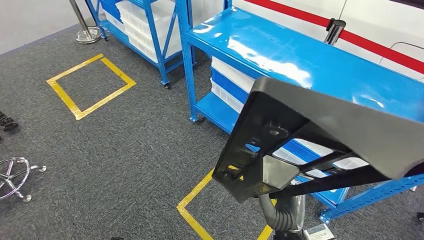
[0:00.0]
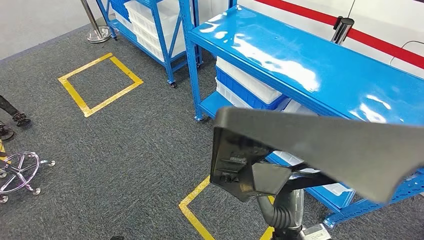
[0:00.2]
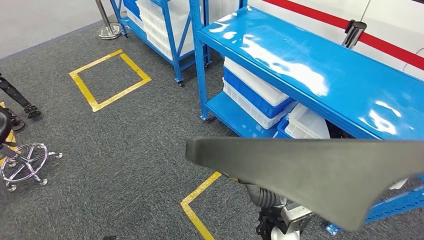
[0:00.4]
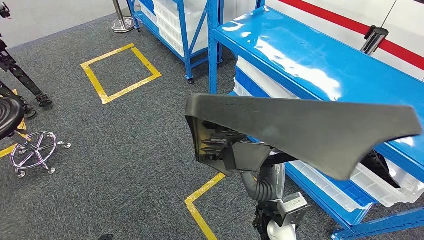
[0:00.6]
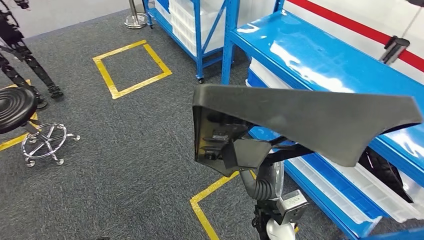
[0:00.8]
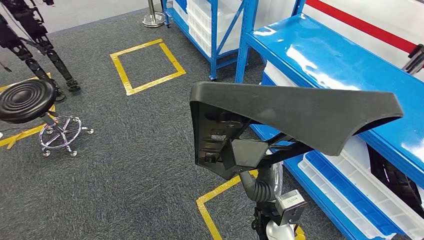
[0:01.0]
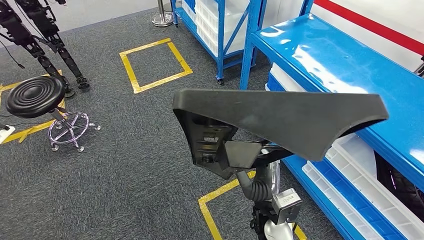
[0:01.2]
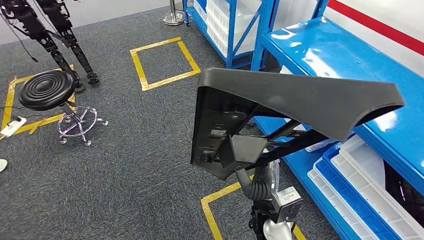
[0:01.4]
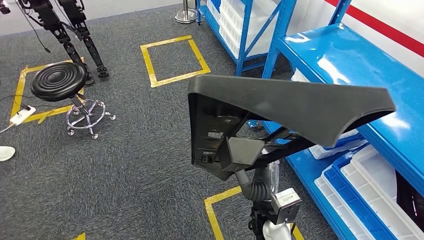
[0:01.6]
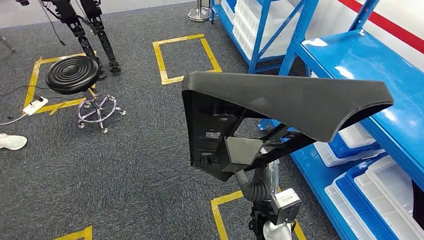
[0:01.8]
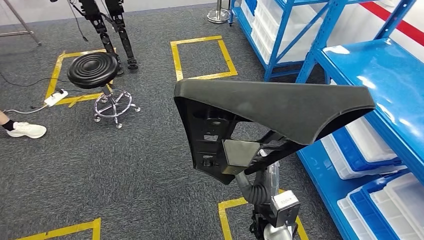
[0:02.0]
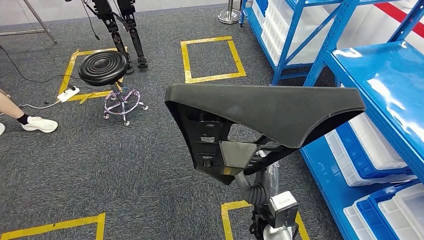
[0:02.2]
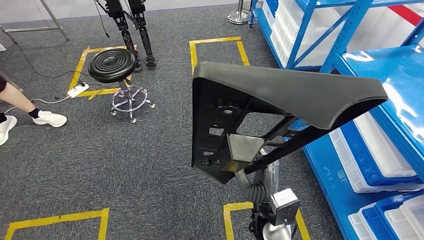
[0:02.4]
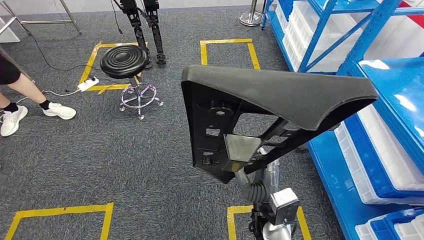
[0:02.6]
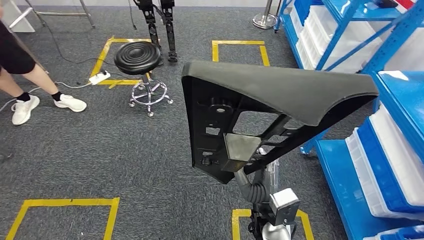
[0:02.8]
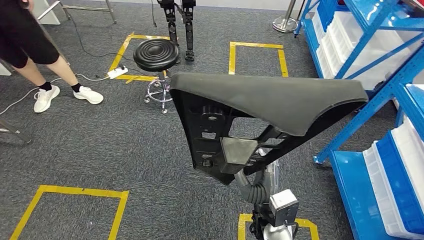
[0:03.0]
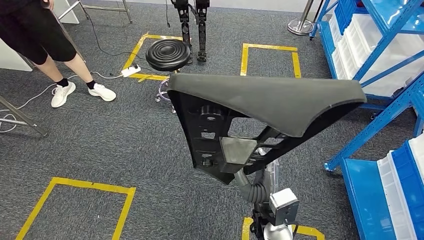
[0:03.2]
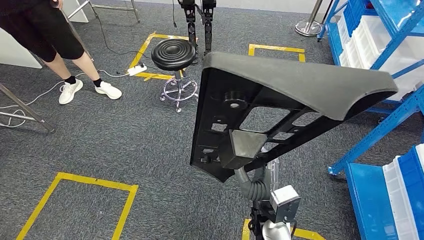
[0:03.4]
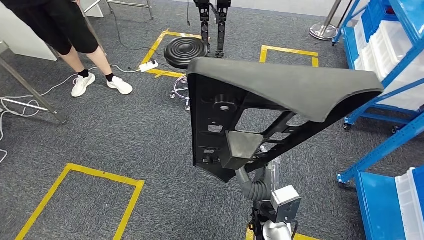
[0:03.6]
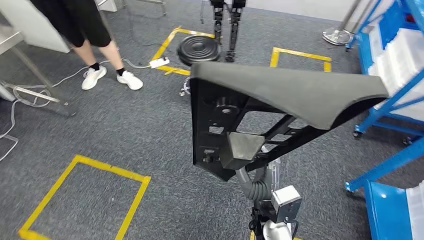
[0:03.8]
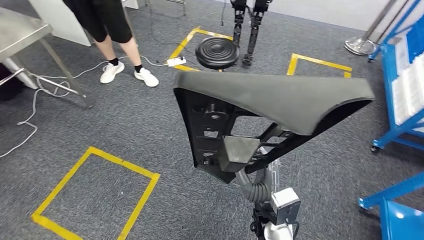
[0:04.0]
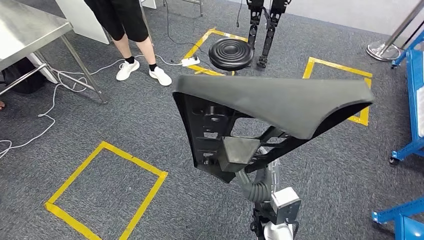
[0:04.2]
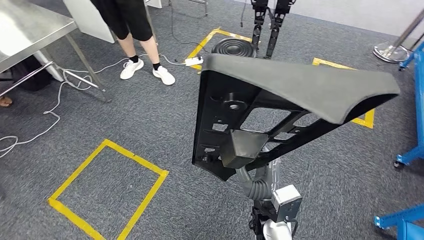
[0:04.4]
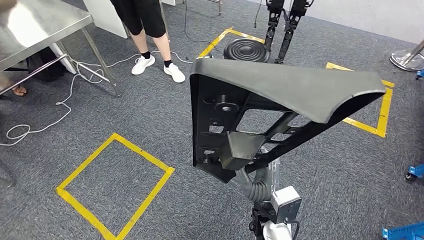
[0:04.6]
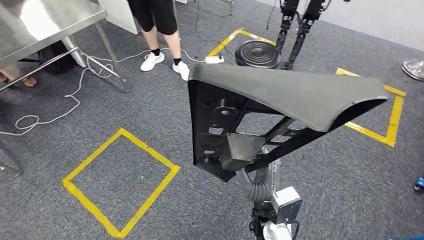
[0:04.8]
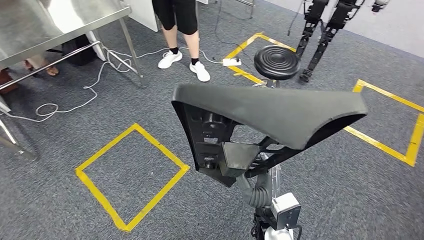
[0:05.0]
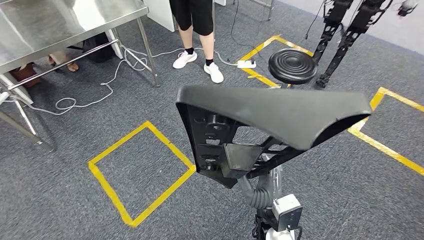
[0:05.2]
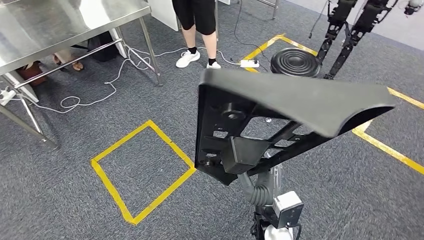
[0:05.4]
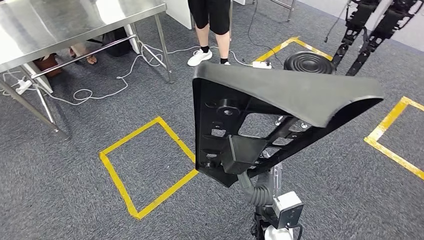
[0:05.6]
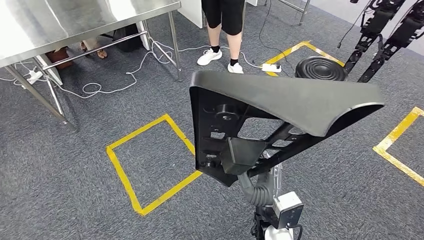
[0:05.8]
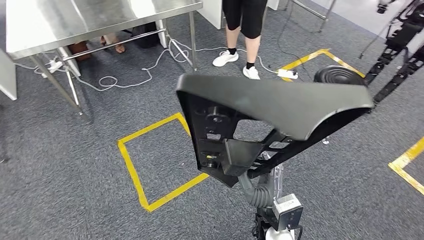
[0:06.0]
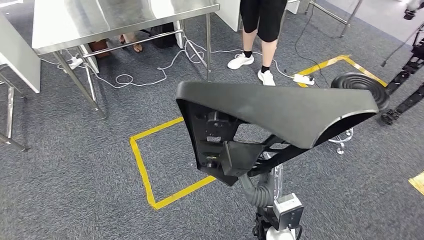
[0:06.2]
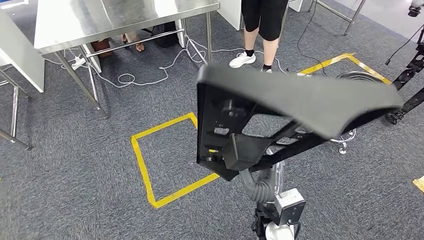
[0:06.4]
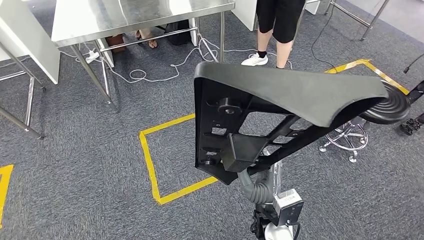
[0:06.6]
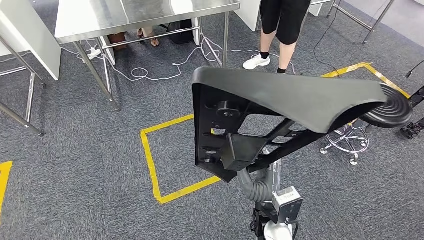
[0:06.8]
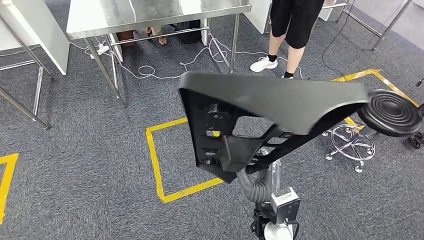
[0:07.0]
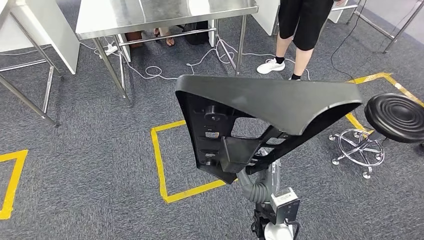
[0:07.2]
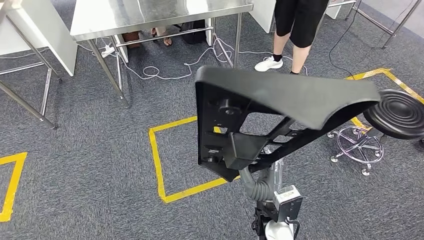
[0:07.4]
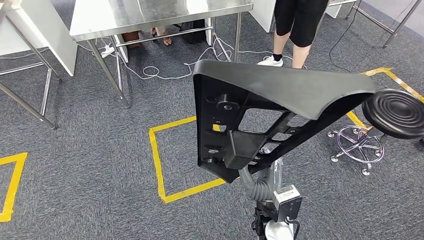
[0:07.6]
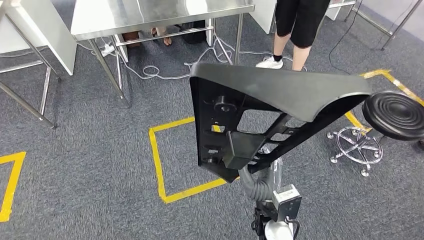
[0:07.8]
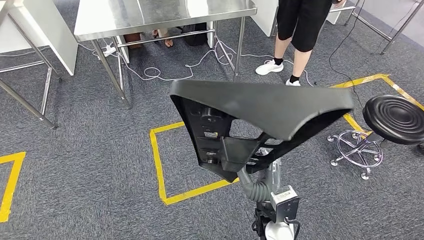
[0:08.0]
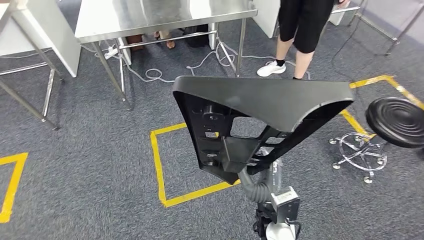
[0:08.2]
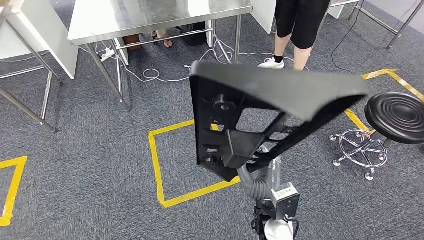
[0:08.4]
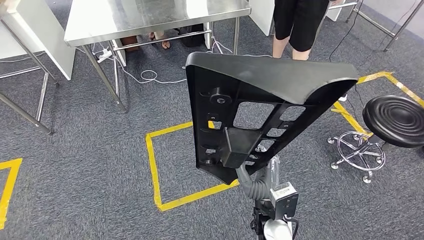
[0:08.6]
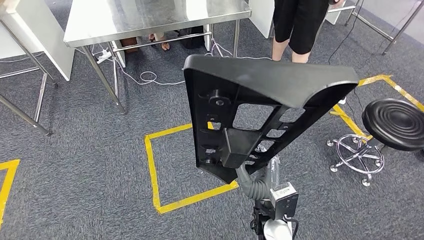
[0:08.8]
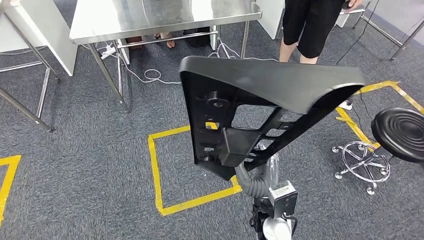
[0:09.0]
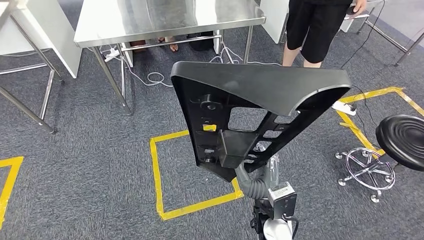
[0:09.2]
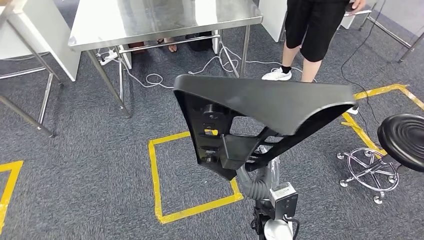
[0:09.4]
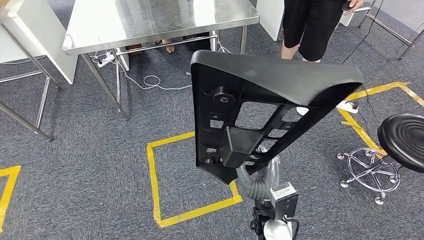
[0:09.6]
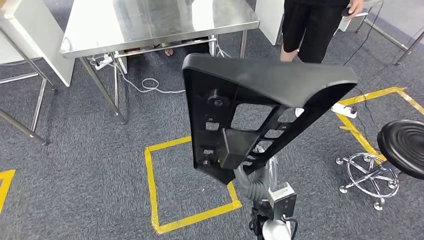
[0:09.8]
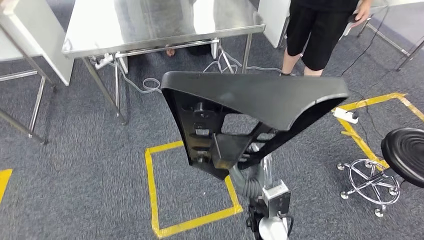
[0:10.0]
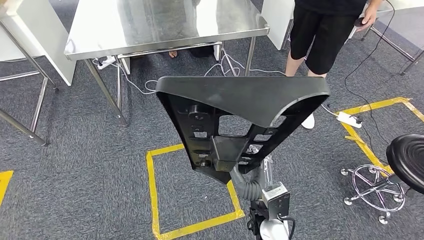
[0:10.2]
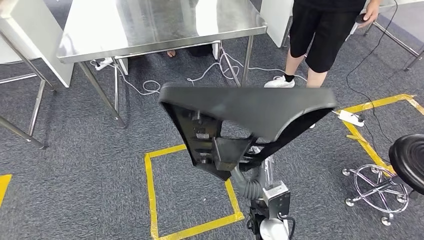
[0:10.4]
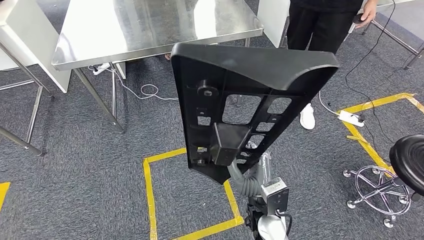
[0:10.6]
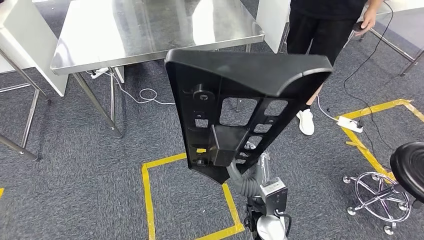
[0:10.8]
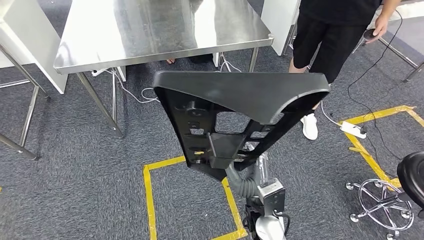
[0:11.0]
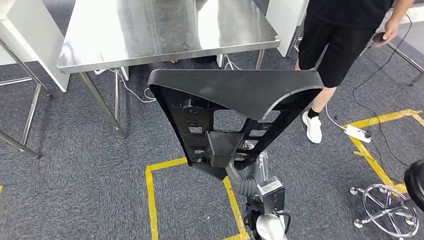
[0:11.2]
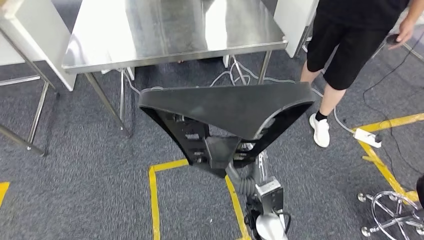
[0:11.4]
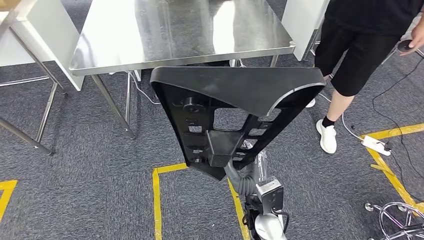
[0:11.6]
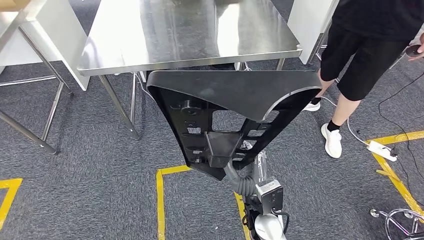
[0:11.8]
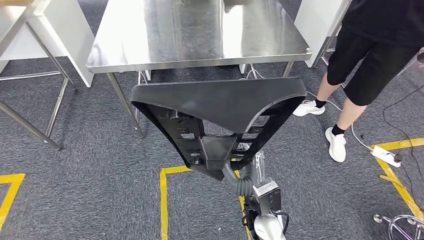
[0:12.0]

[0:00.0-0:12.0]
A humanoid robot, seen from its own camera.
Step, 0:00.0 to 0:10.4: Move the large material to the workbench.

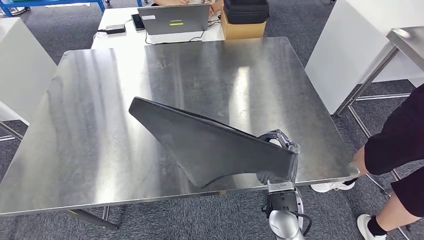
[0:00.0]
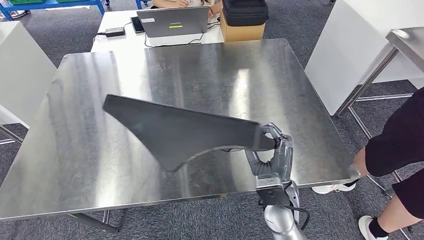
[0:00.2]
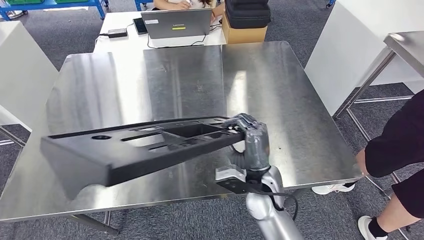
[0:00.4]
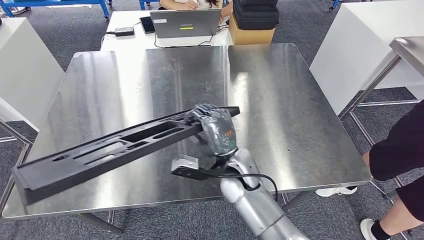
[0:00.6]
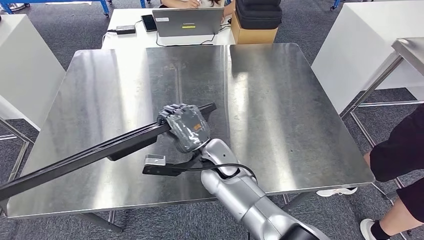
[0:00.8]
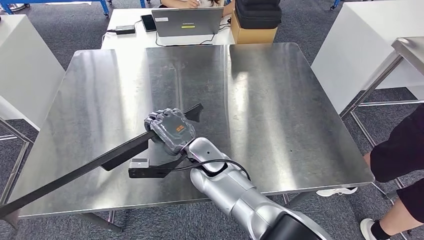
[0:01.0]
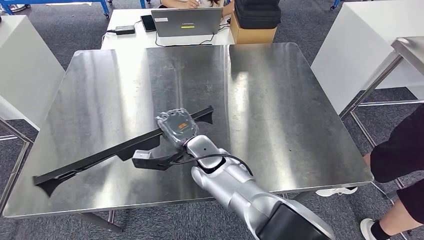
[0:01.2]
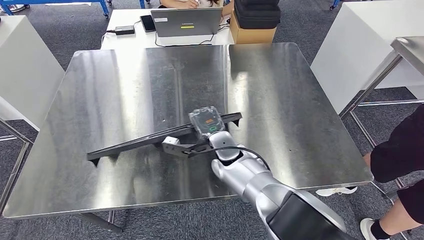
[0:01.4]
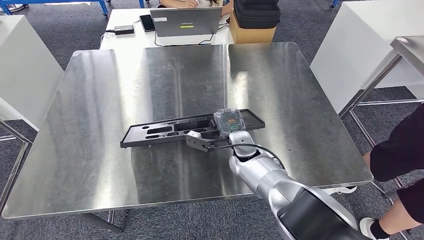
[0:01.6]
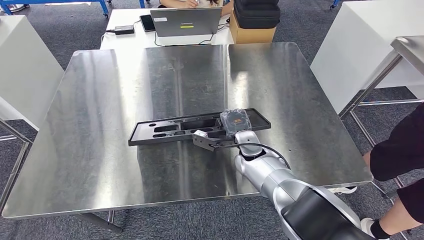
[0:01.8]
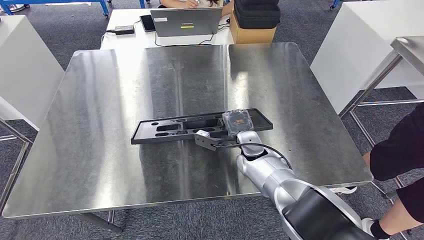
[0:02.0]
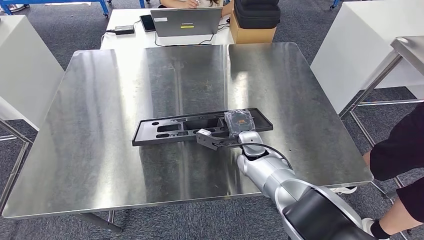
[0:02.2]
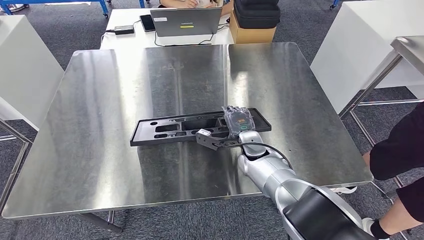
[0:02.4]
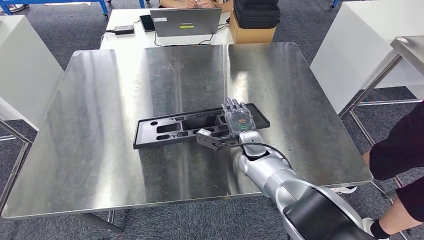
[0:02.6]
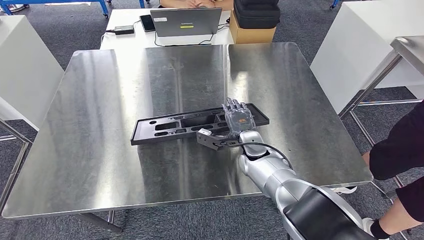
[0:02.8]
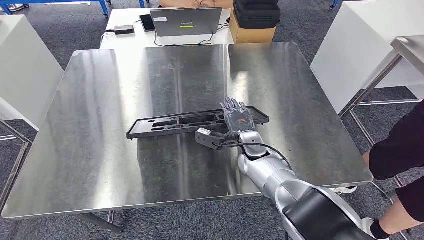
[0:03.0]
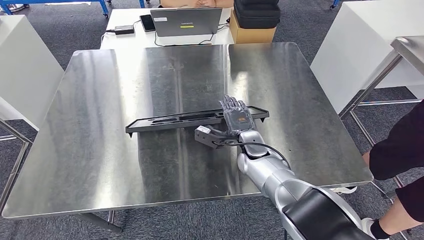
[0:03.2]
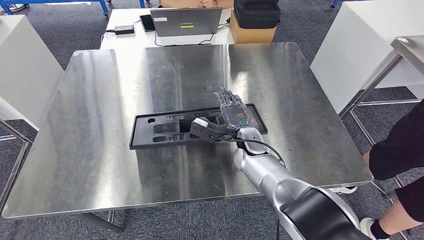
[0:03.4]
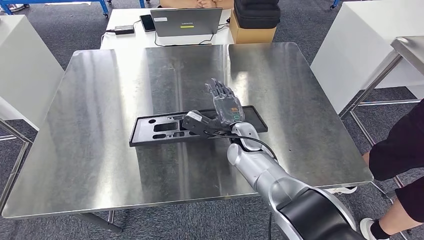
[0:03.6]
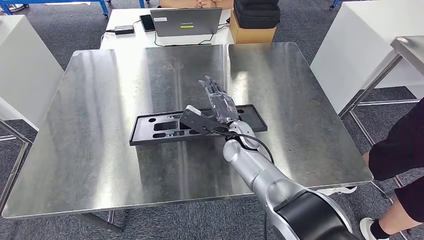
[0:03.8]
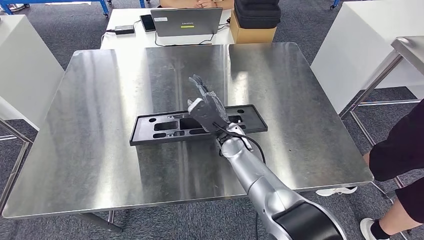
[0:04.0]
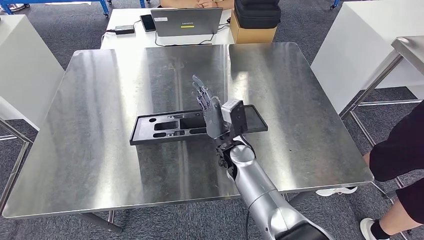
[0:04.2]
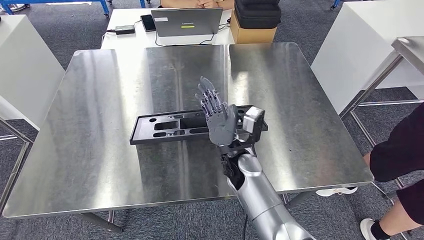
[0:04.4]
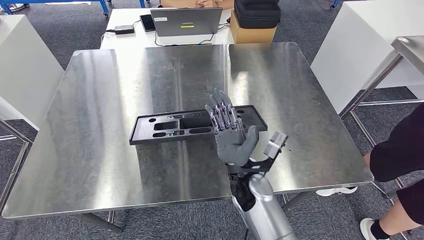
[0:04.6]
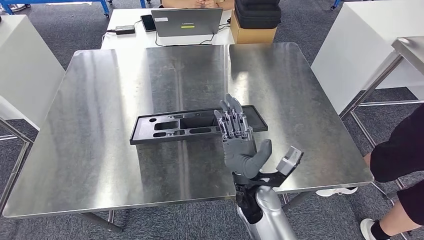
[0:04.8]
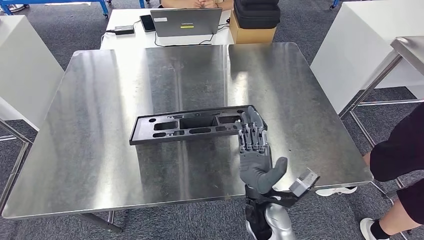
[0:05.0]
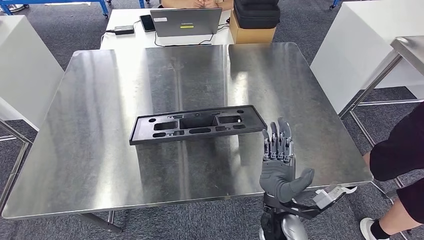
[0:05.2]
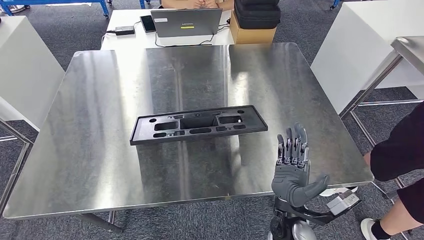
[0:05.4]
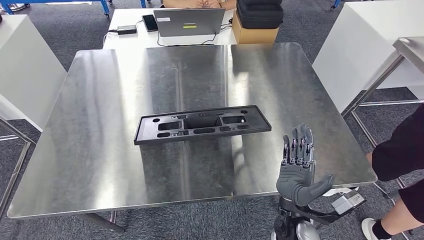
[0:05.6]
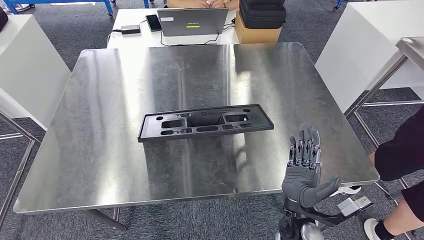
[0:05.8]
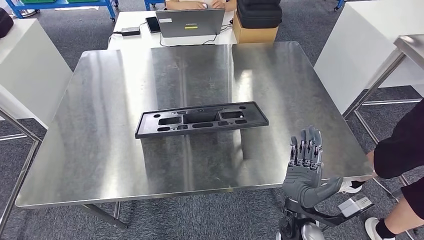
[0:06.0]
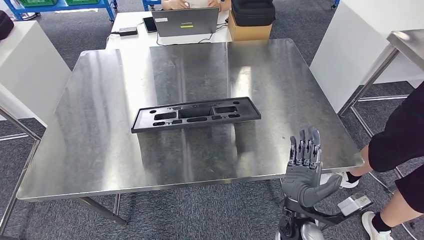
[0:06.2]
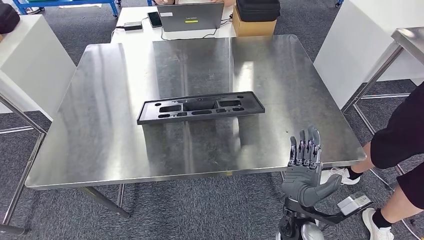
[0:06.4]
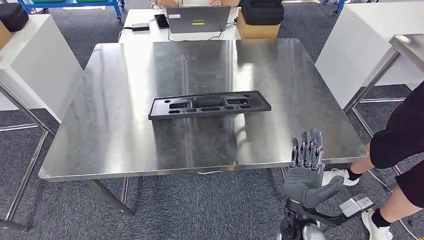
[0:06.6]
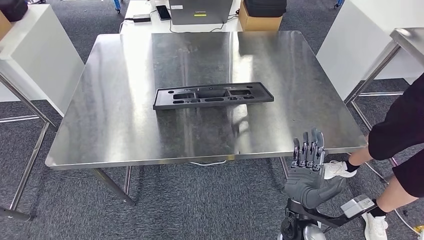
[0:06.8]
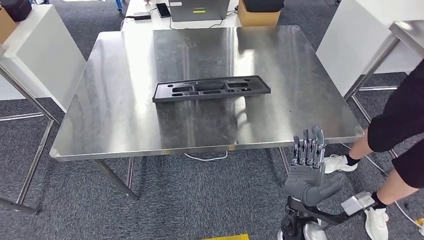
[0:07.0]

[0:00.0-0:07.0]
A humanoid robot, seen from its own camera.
Step, 0:00.0 to 0:03.8: Insert the large material into the corresponding slot on the workbench.
0:01.4 to 0:02.8: The right hand shifts some 10 cm to the right.
0:02.8 to 0:04.2: The right hand goes about 5 cm to the left.
0:04.2 to 0:05.6: The right hand heads backward and to the right, covering some 20 cm.
